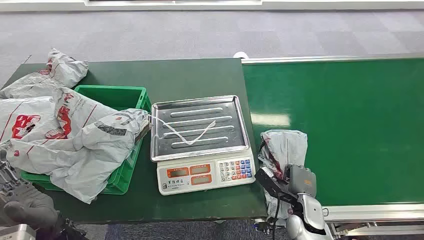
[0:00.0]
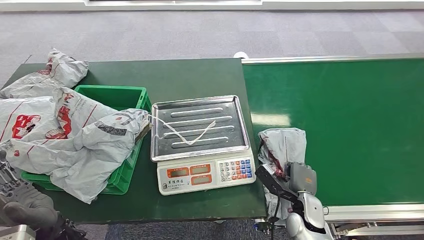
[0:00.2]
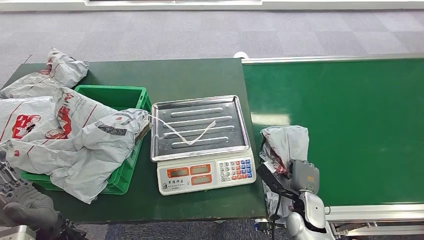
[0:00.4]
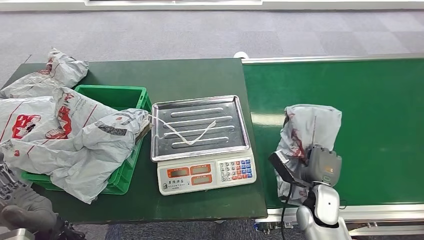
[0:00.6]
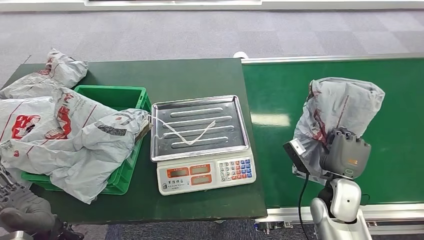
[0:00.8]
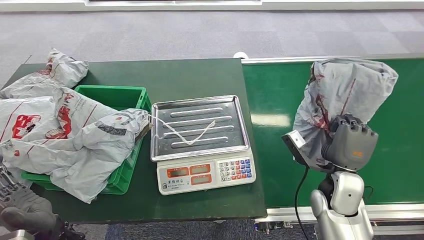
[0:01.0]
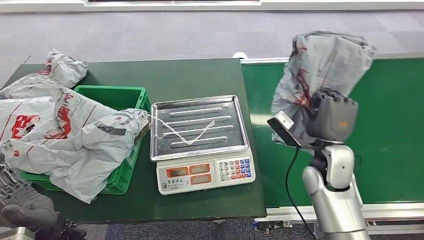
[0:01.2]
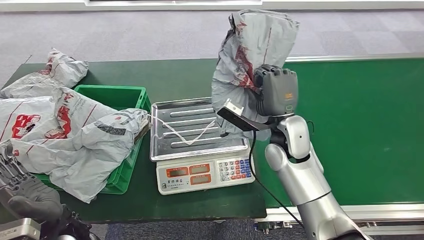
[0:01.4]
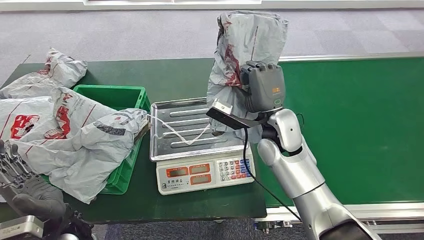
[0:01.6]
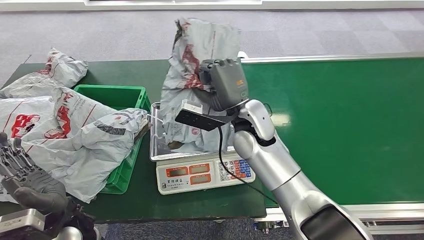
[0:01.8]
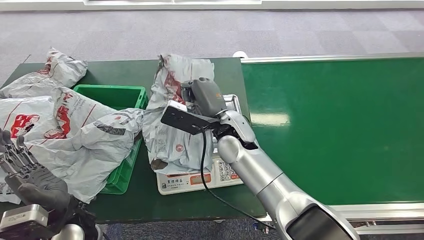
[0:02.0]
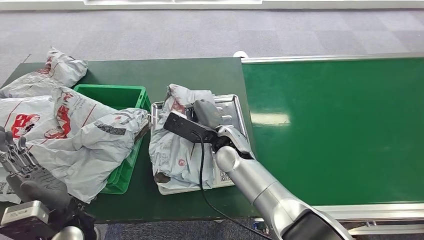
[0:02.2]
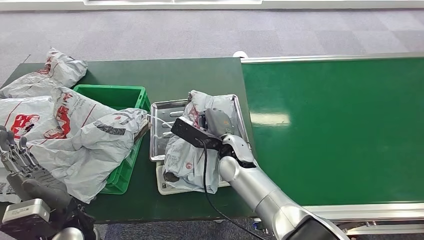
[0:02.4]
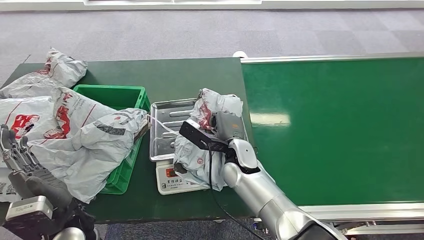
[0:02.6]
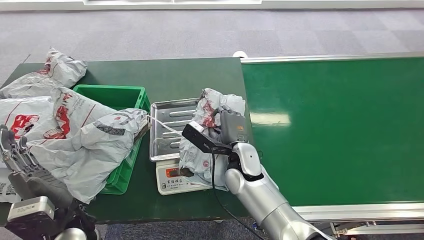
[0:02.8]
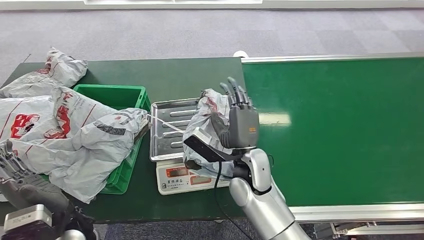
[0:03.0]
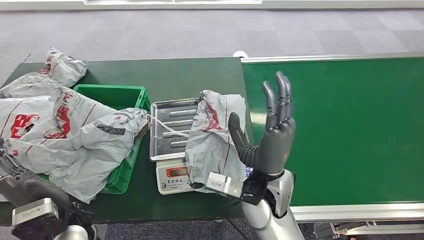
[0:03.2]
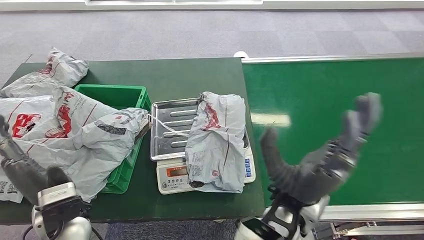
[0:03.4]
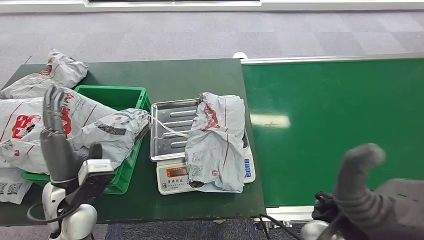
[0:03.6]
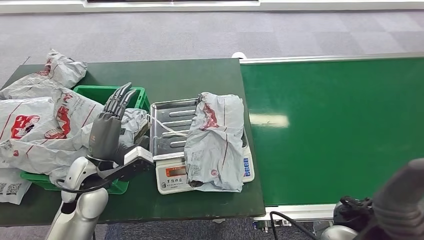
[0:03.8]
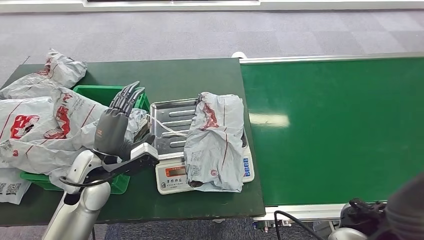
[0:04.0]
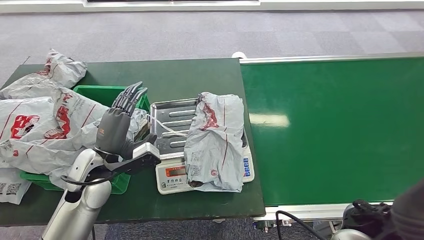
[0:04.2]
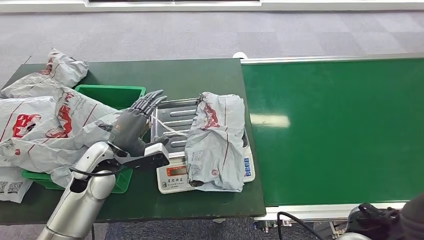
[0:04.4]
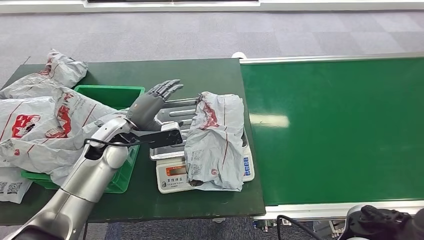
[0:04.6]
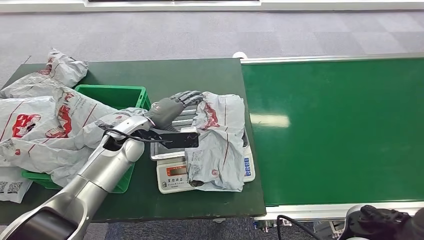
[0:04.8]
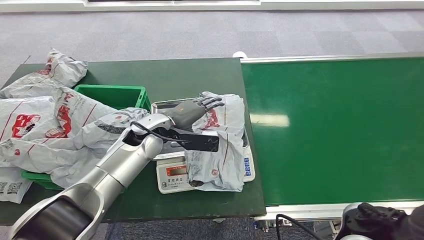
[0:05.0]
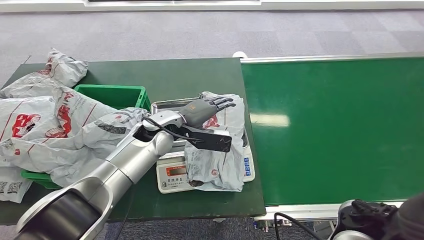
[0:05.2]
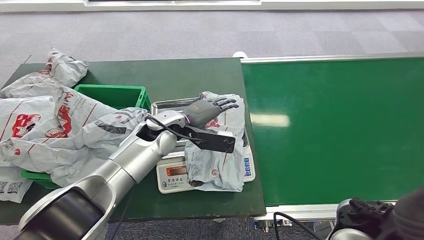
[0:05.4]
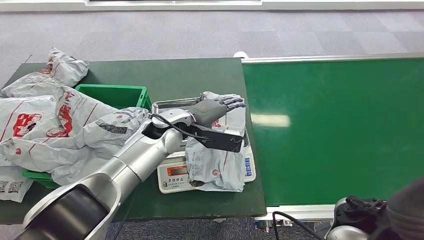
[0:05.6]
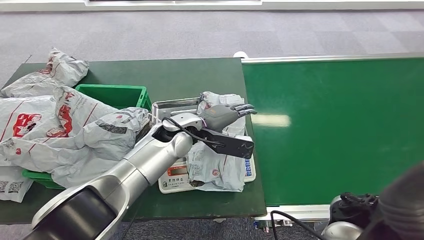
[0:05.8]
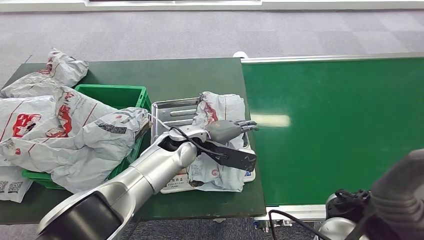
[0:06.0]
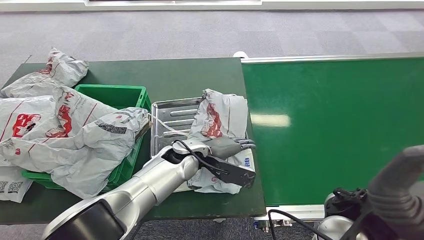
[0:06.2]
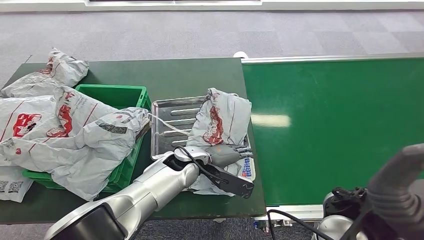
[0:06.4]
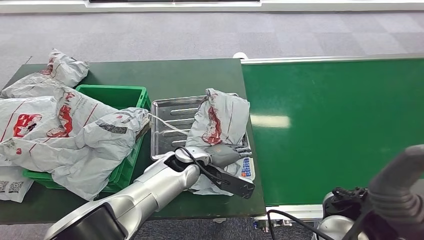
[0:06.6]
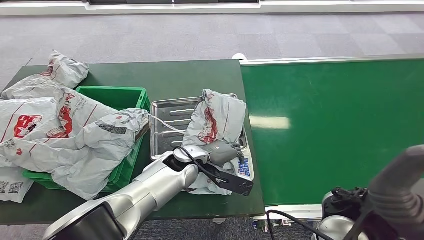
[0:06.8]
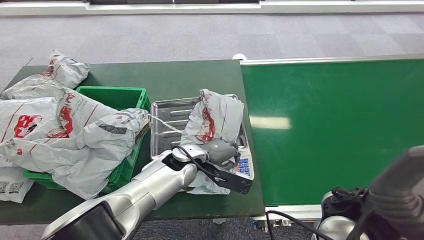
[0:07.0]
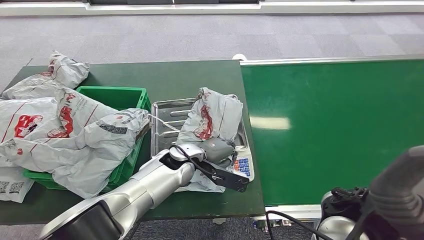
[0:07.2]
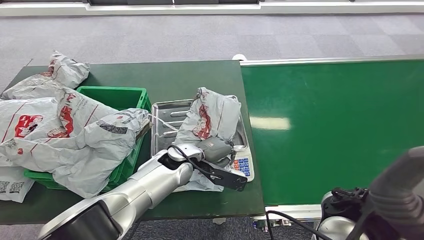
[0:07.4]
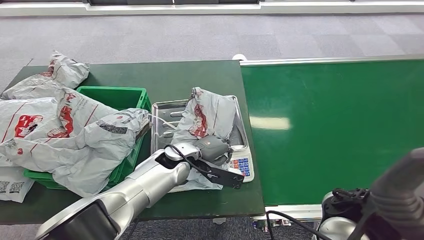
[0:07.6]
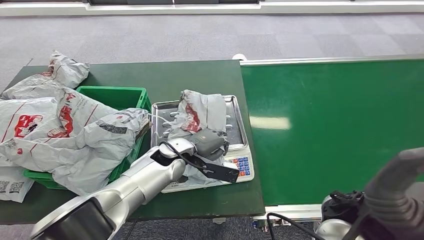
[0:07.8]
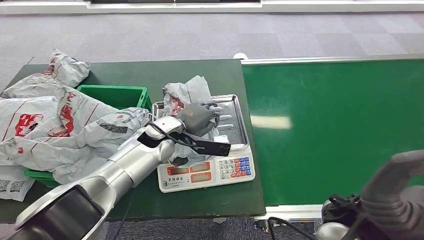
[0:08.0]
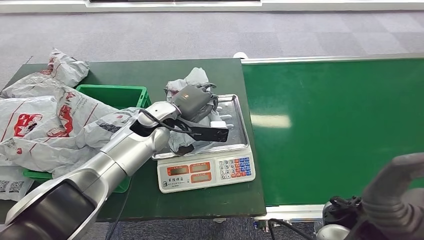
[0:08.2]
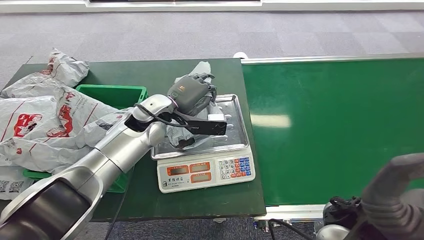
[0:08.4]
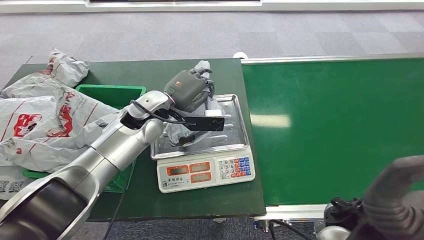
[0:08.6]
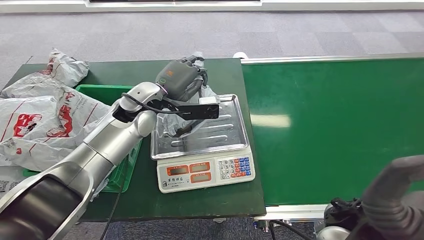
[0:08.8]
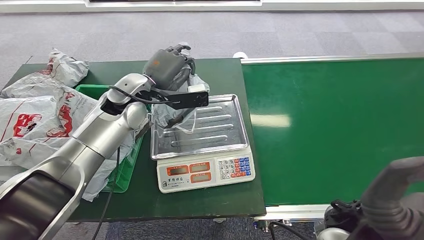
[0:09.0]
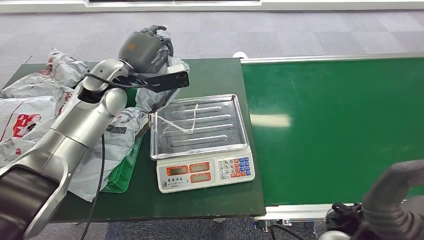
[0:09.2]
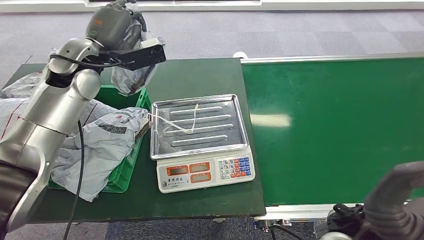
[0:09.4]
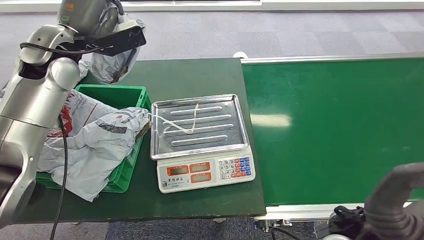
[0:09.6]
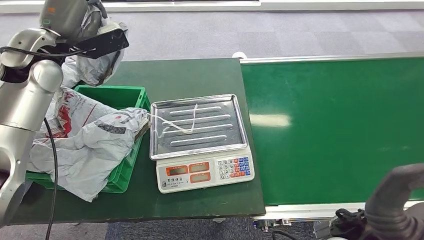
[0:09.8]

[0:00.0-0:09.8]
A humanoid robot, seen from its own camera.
Step, 0:00.0 to 0:01.0: Pick up the package from the conveyor belt.
Step, 0:01.2 to 0:04.4: Place the package onto the inbound machine.
Step, 0:04.6 to 0:09.8: Pick up the package from the inbound machine.
0:04.2 to 0:05.6: The left hand is displaced to the right and forward by roughly 20 cm.

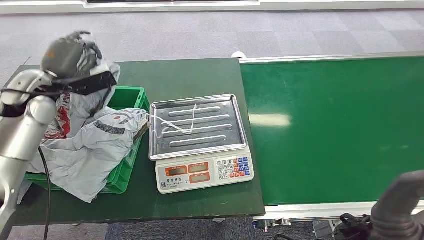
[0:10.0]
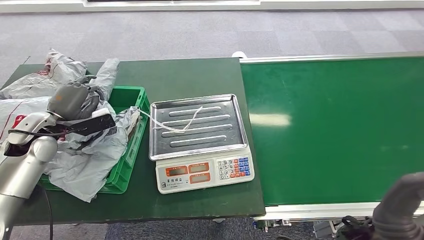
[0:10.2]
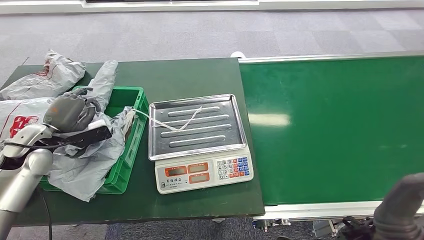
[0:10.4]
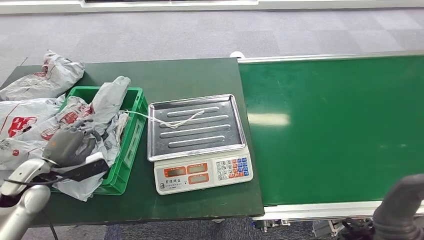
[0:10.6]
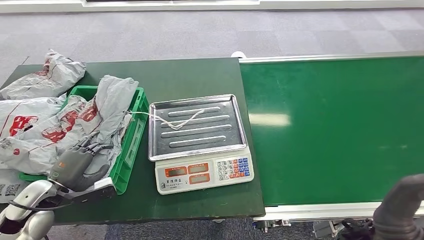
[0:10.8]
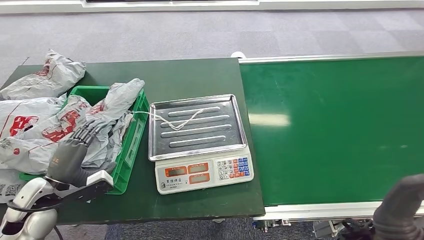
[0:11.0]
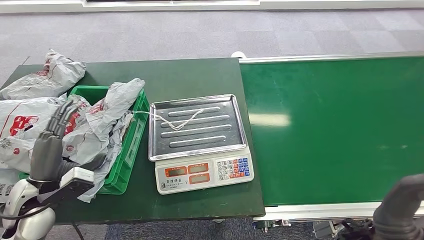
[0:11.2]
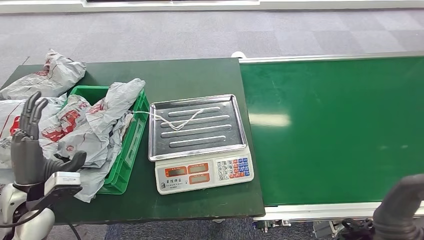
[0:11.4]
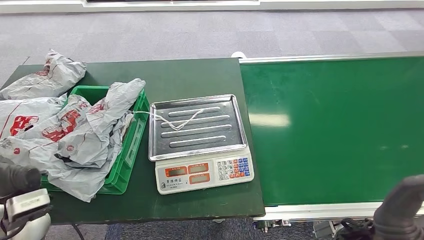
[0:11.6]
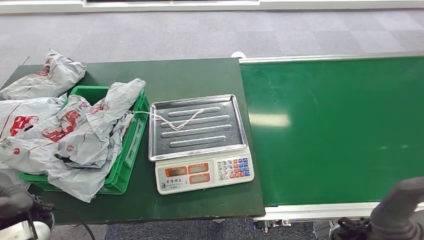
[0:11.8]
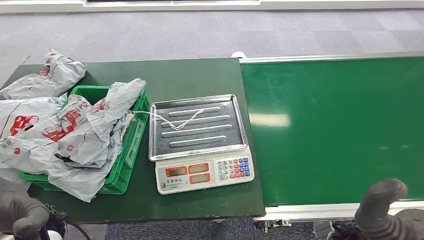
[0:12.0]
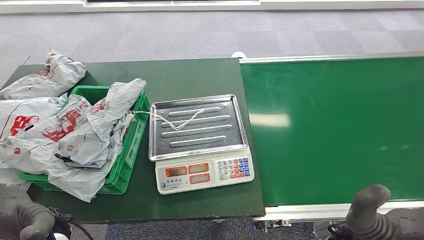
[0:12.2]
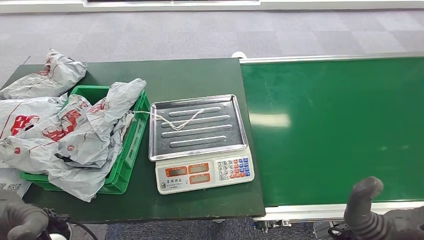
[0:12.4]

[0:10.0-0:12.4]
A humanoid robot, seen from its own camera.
Step, 0:10.0 to 0:12.4: Place the package into the parcel locker.
0:10.0 to 0:11.2: The left hand goes some 25 cm backward and downward.
0:11.2 to 0:12.4: The right hand heads downward, covering approximately 5 cm, while the left hand heads to the right and backward, covering approximately 10 cm.

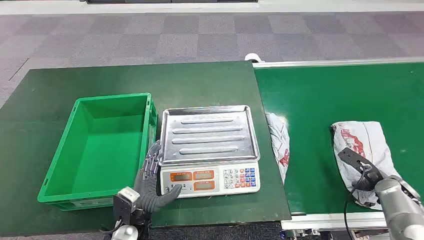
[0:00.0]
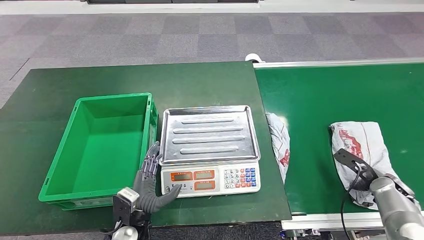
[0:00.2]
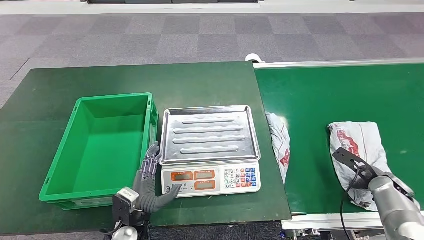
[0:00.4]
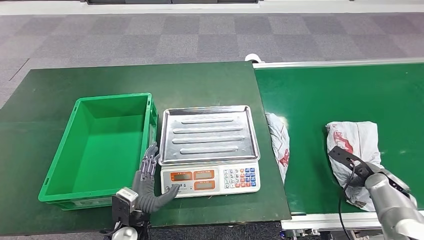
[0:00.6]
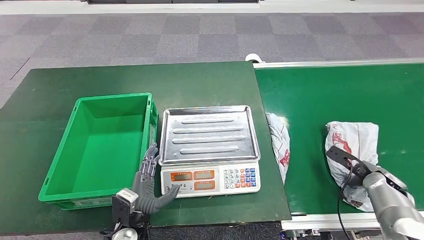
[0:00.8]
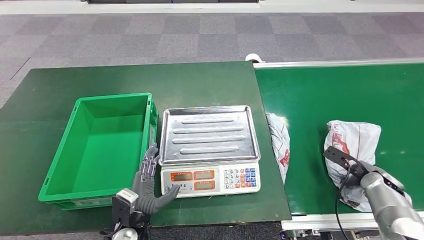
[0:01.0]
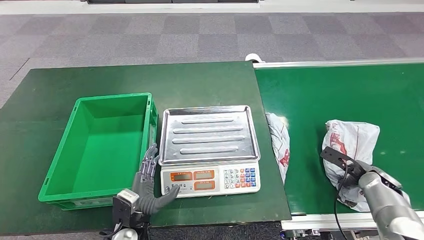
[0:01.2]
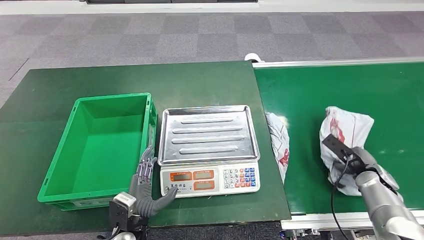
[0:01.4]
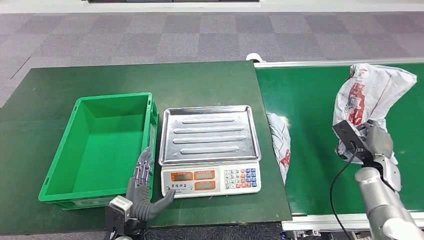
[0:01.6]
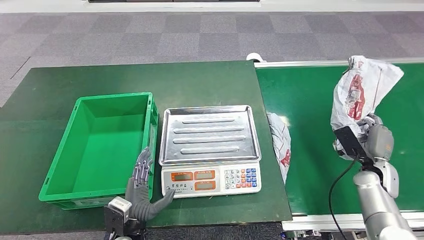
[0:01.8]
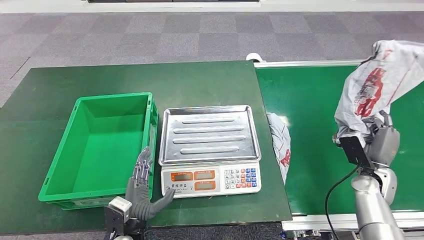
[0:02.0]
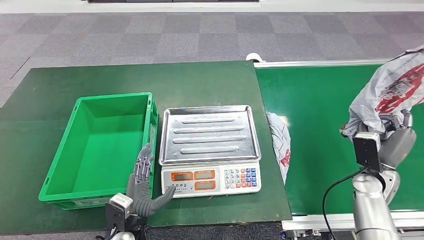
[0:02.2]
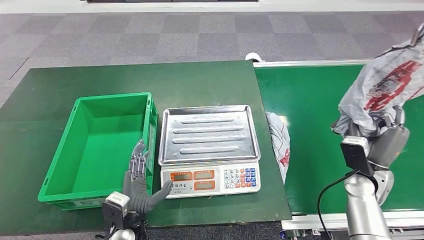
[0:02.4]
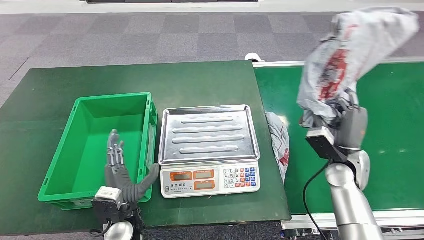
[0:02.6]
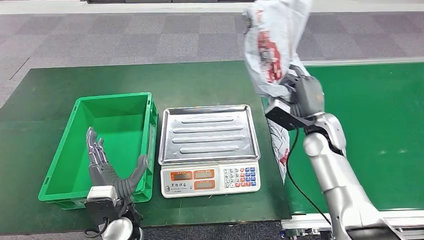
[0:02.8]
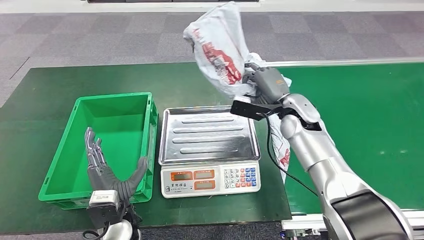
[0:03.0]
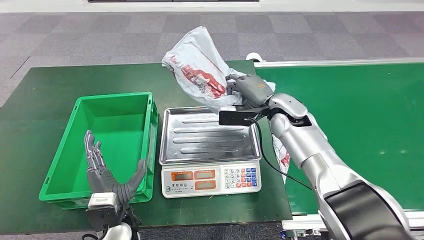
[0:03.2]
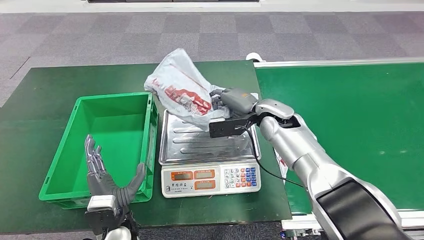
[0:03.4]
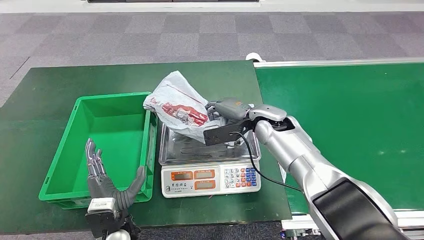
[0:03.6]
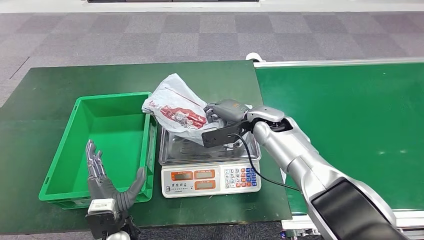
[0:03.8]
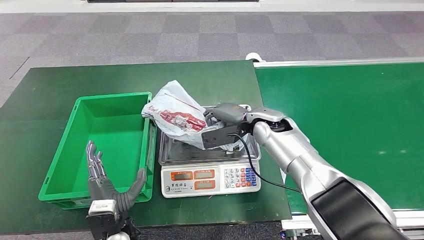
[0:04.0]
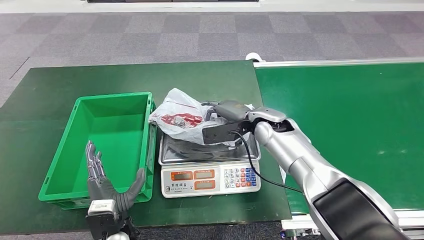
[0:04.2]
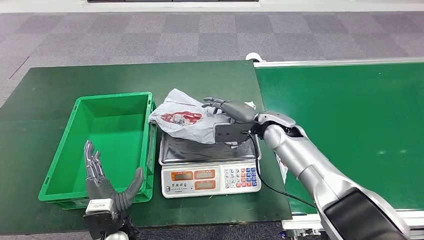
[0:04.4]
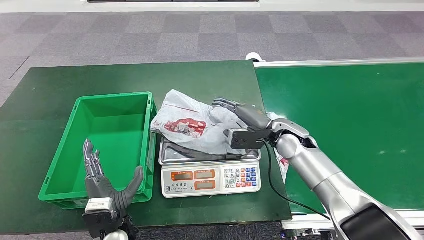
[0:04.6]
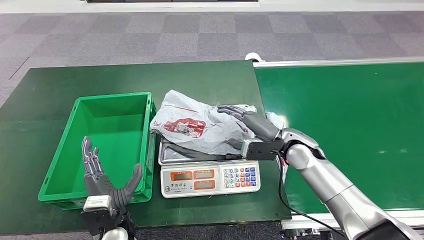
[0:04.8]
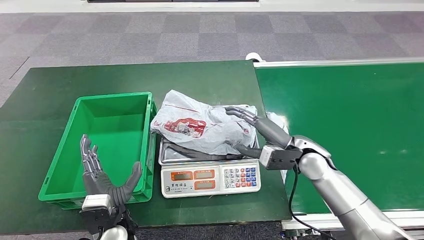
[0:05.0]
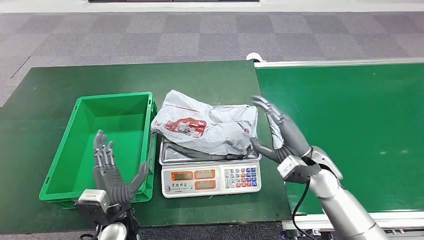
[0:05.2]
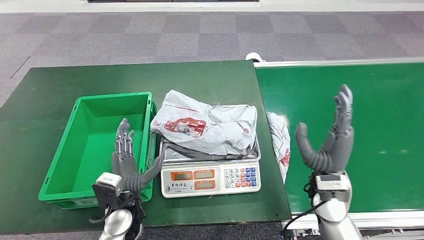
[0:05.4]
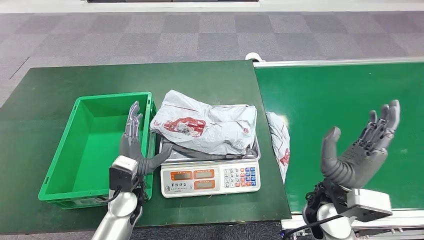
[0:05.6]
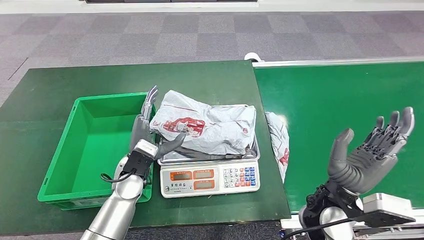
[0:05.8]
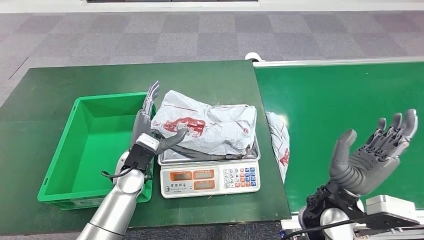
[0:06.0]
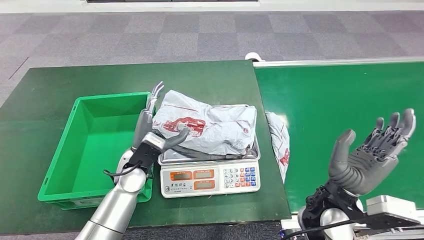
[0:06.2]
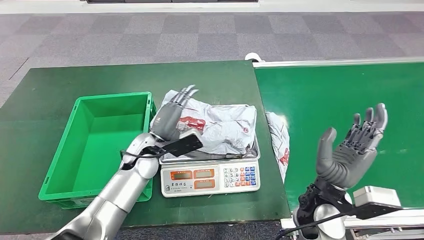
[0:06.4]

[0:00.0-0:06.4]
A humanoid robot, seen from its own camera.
Step, 0:00.0 to 0:01.8: Pick up the package from the conveyor belt.
Step, 0:02.2 to 0:05.6: Place the package onto the inbound machine.
